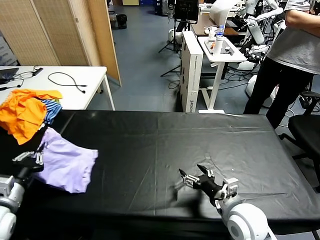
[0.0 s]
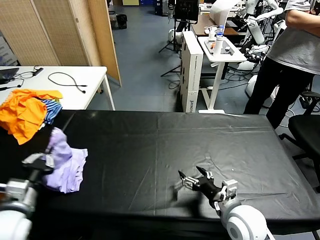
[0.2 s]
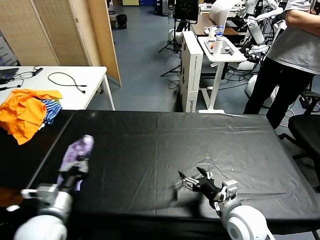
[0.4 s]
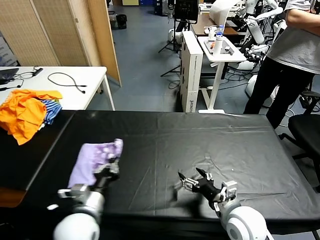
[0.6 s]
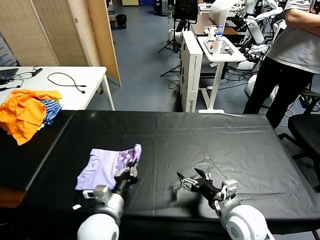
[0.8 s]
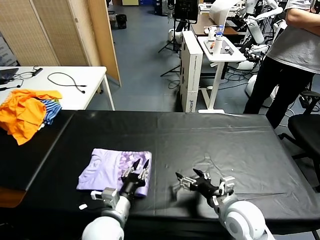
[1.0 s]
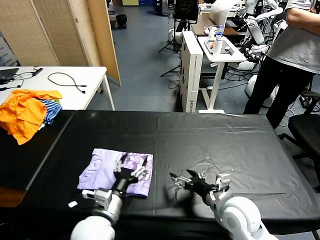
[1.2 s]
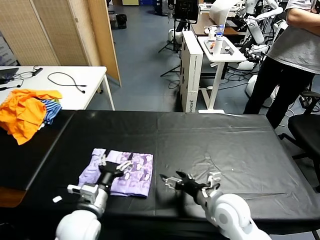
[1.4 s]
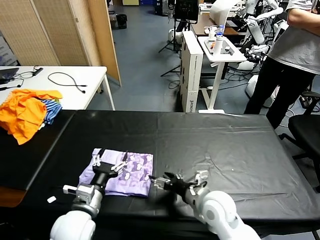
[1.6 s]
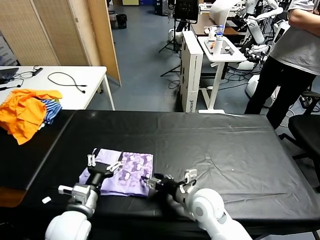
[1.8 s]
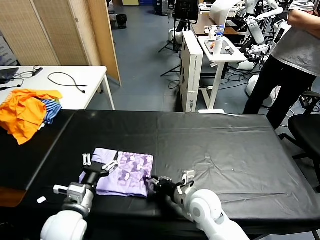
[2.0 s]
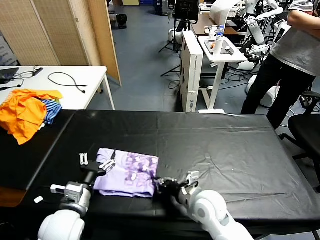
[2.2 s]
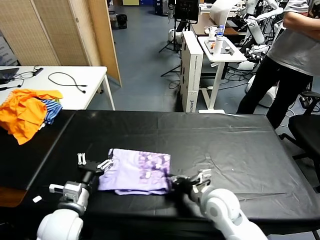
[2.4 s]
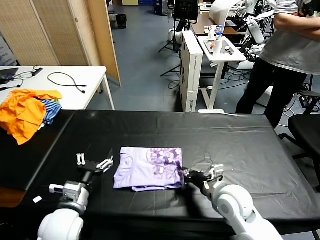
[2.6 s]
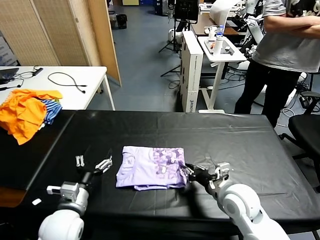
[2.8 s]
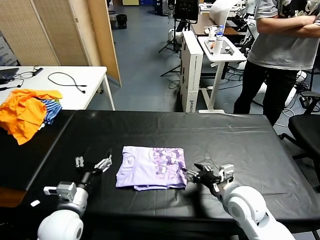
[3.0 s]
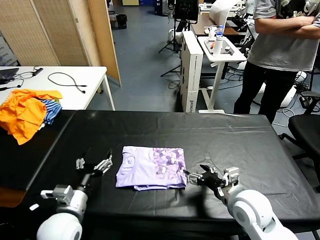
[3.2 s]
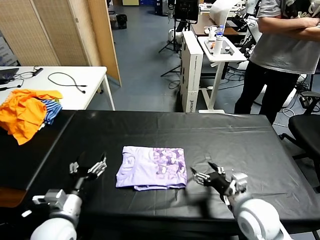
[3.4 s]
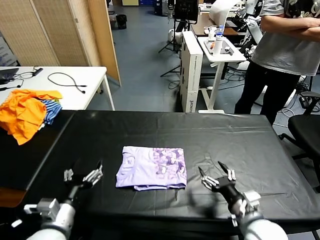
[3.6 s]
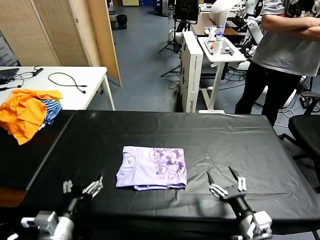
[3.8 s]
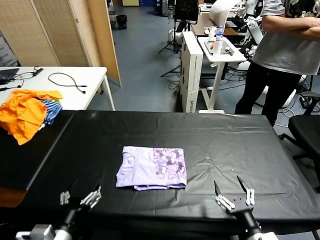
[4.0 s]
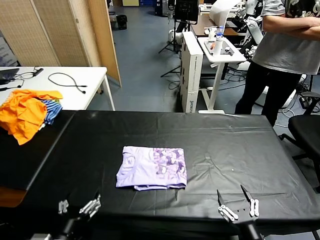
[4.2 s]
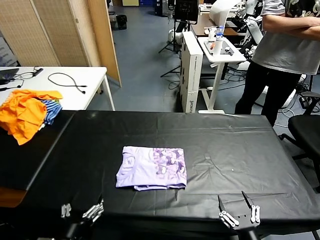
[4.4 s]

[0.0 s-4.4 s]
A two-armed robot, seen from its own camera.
Task of the whole recording: fold and organize the clothes.
Step, 1.6 to 3.0 s: Drag the clothes to the center of the table.
0.0 to 1.4 s: The left gripper is displaced to the right by some 20 cm, and opens up.
1.4 to 3.0 s: The right gripper closes, then opens again. The left gripper is displaced to the left by some 5 cm.
3.0 to 4.4 s: The right gripper moves backward, about 20 cm, while the left gripper goes roughly 15 cm backward.

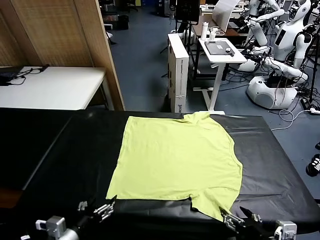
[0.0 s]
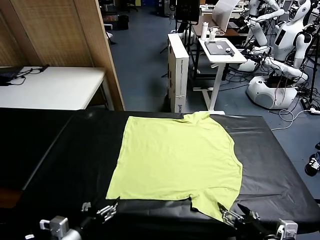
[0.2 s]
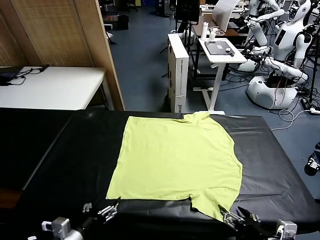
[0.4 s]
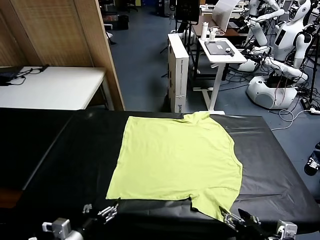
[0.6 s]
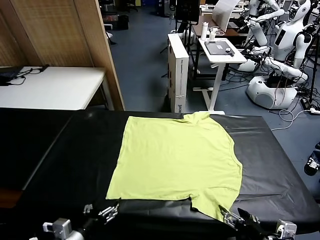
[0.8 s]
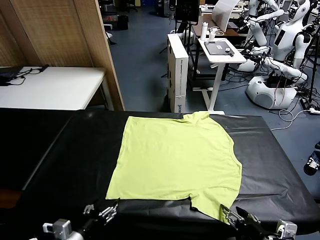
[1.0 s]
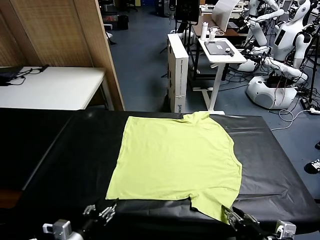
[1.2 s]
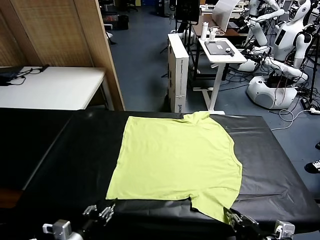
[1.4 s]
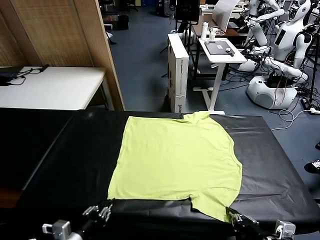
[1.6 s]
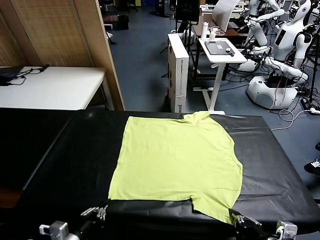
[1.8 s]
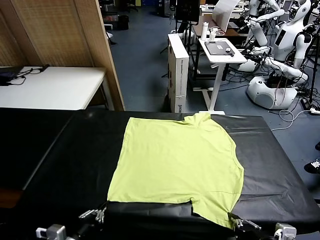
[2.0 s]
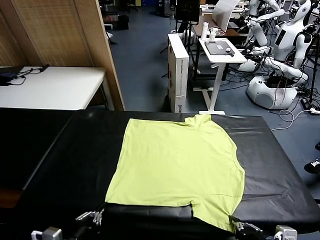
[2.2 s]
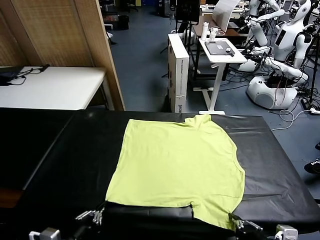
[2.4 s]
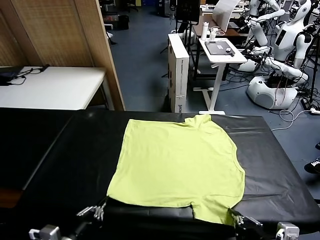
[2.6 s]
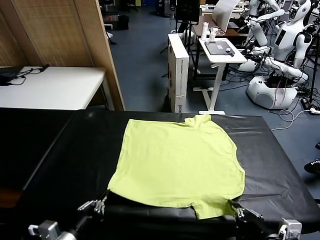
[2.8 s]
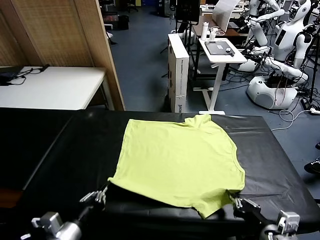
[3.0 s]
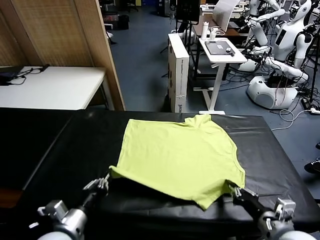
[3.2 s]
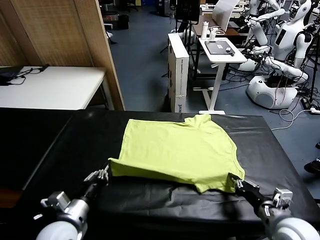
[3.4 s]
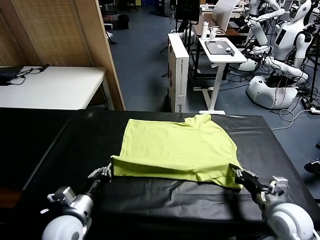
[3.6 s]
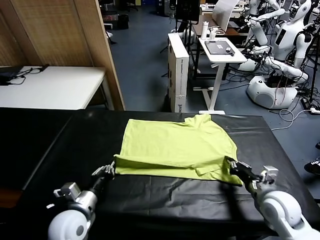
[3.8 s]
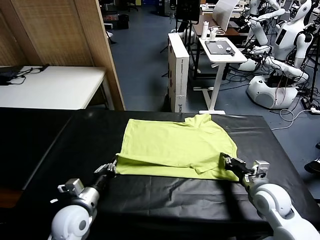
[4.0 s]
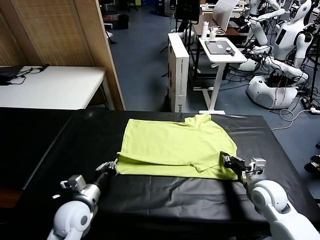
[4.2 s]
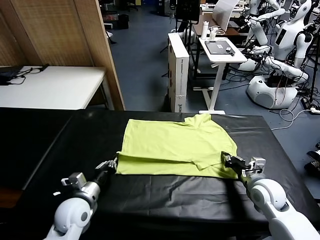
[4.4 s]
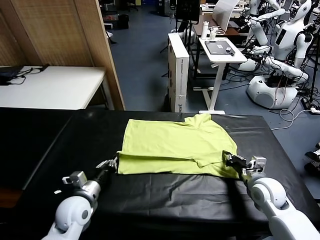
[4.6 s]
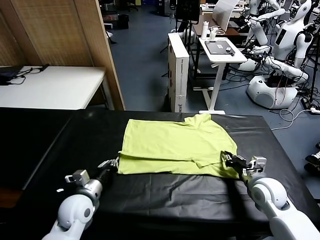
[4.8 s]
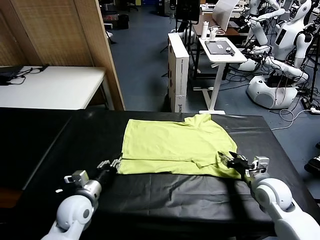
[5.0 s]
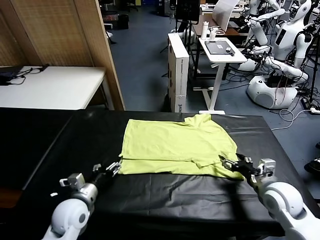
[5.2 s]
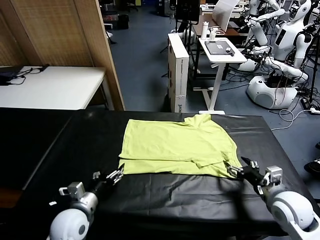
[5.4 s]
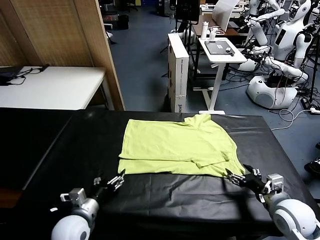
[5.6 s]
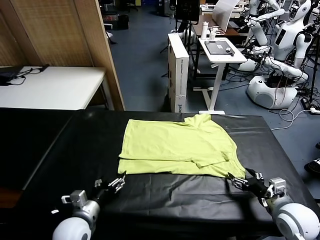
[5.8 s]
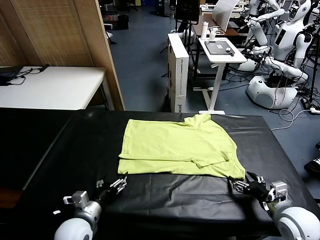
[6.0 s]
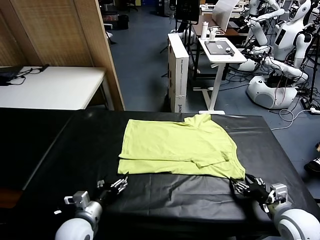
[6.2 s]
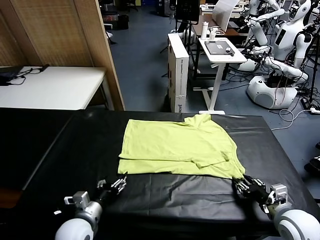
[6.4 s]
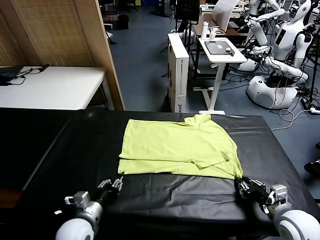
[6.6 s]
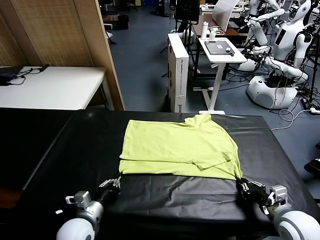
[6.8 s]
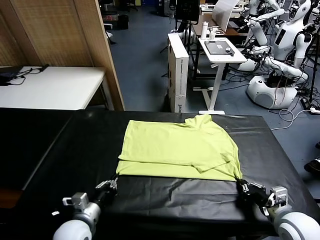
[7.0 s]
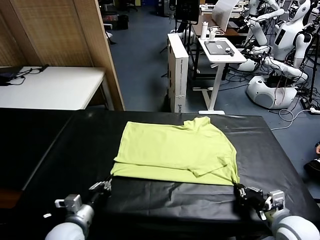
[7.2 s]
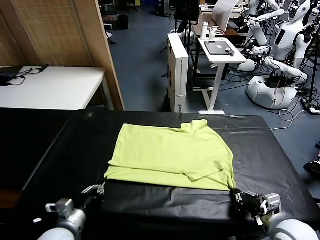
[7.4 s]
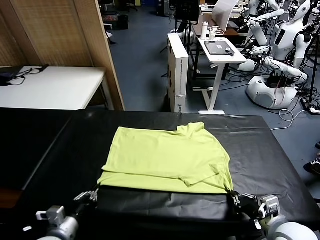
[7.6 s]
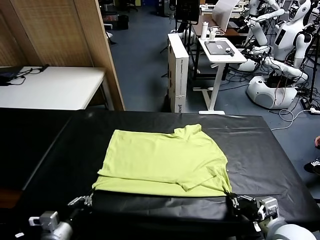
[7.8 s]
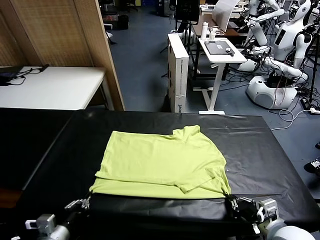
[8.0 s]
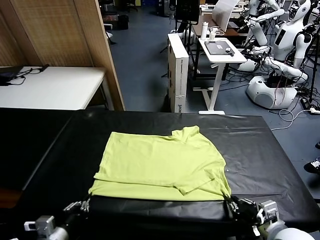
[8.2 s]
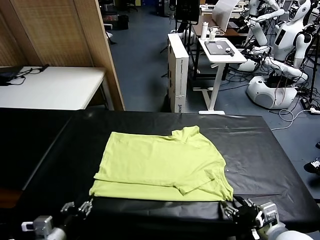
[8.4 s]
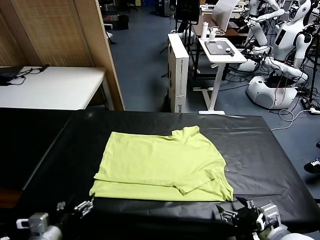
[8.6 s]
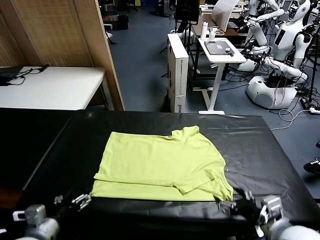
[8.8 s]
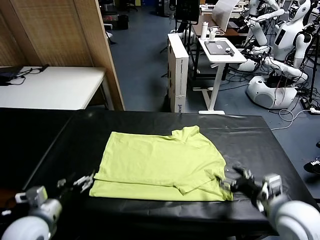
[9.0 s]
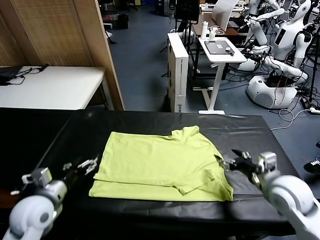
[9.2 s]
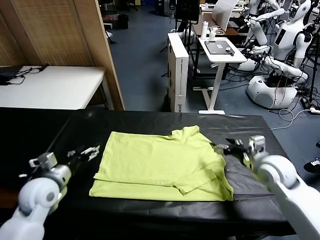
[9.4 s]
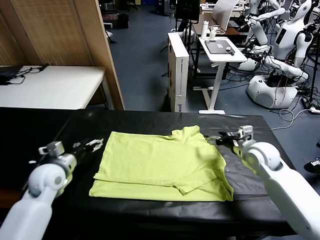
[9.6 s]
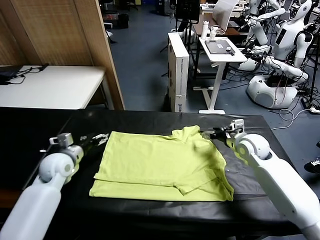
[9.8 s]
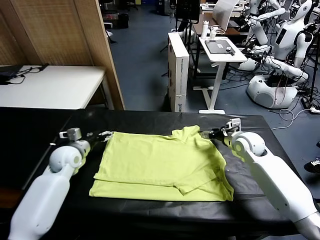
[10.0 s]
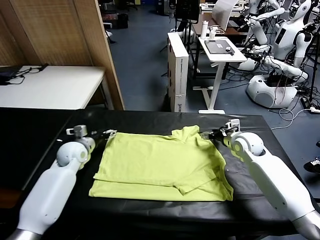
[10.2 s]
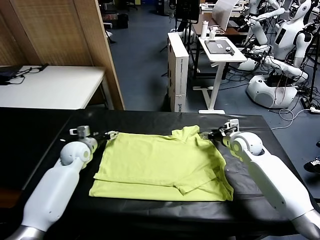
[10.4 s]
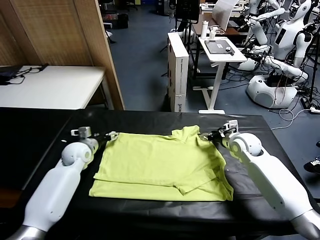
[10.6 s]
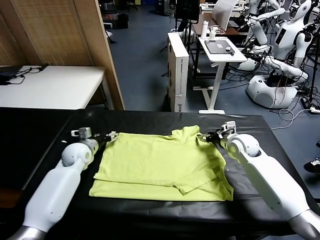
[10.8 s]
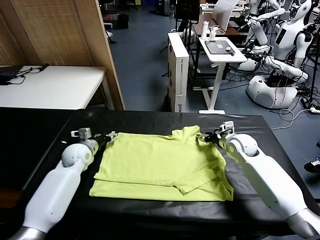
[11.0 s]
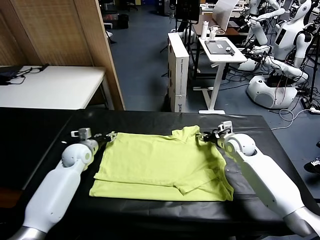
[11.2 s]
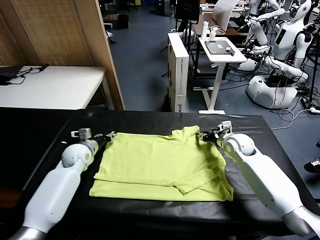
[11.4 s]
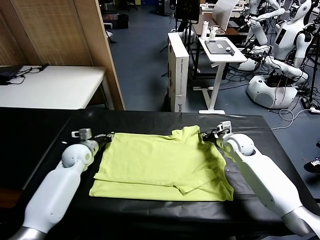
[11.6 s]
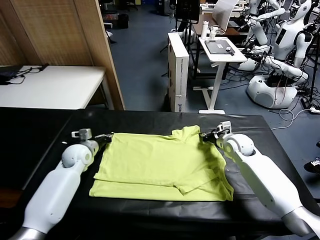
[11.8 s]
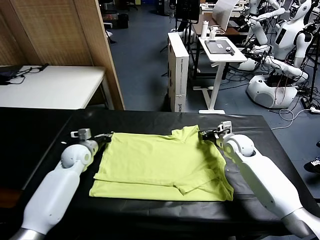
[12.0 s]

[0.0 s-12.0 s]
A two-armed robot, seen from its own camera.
Task of the whole recording: fold and organize the clothes.
Step, 0.0 to 1.8 s: use both grippers simultaneously to clamp the lower edge of the clothing fabric.
Step, 2.0 to 5.0 s: use both grippers to drag the lower edge of the fabric forward and fold it over the upper edge.
Step, 5.2 to 8.4 s: Drag the clothes downward with both gripper.
Step, 8.6 to 11.8 s: use both grippers simultaneously to clamp the upper edge of the clothing fabric.
1.6 to 3.0 s: Both grippers travel together forward, some 5 cm.
3.0 to 4.4 s: The right gripper heads forward, covering approximately 15 cm. The left gripper travels forward and downward by roughly 10 cm.
4.4 to 6.0 s: The right gripper travels backward by roughly 10 cm, and opens its fingers, while the left gripper is displaced backward by about 5 cm, and opens up.
6.0 to 7.6 s: The right gripper is displaced to the left by roughly 5 cm, and closes its fingers. Meanwhile the left gripper is displaced backward and to the left by about 10 cm, and closes.
7.6 to 9.0 s: The right gripper goes approximately 20 cm forward, and opens. The left gripper moves forward and upward, some 15 cm, and opens its fingers.
9.0 to 10.4 s: The right gripper is displaced forward and downward by approximately 15 cm. The left gripper heads forward, covering some 20 cm.
10.4 to 12.0 s: The left gripper closes up, while the right gripper closes up.

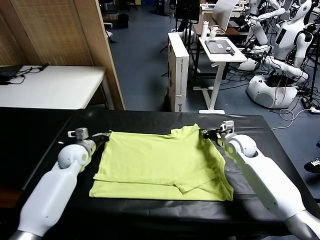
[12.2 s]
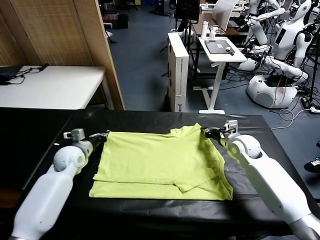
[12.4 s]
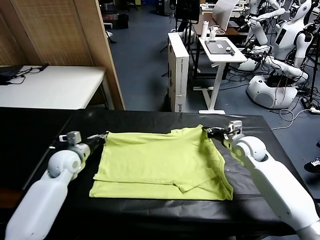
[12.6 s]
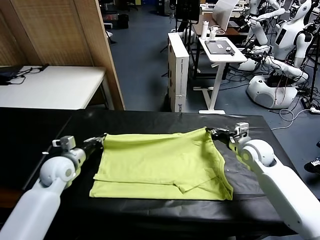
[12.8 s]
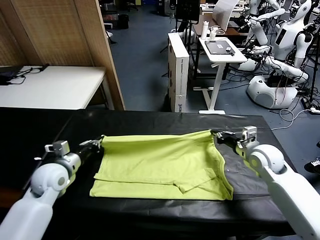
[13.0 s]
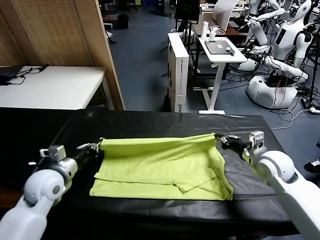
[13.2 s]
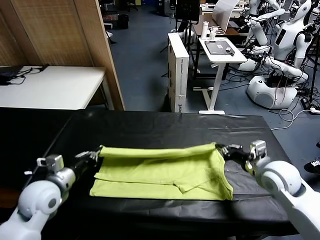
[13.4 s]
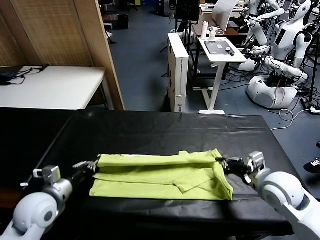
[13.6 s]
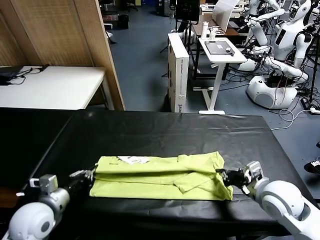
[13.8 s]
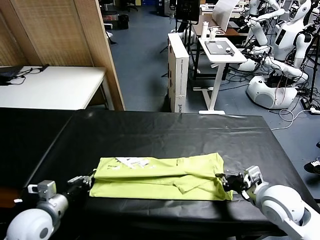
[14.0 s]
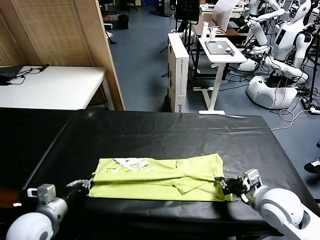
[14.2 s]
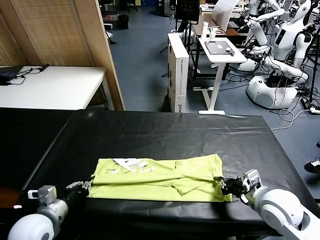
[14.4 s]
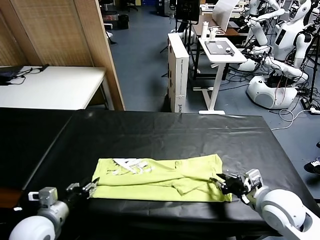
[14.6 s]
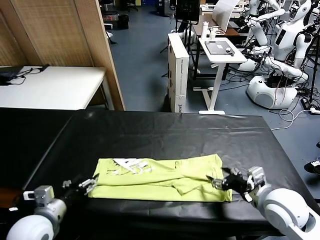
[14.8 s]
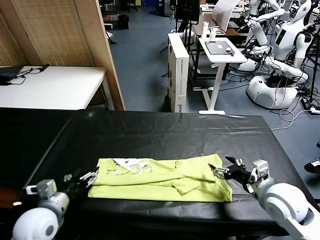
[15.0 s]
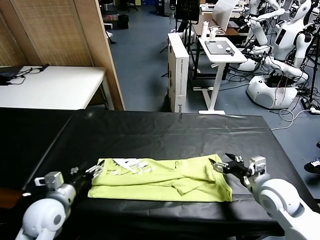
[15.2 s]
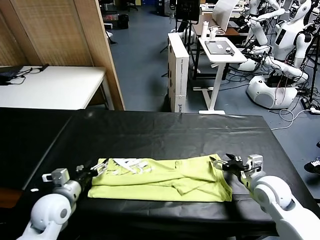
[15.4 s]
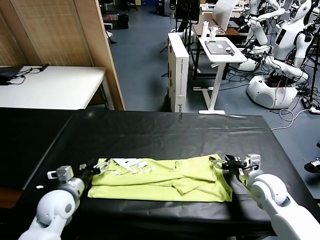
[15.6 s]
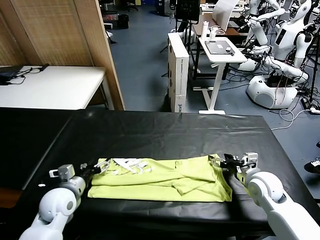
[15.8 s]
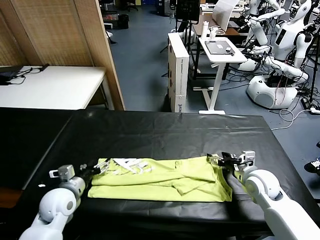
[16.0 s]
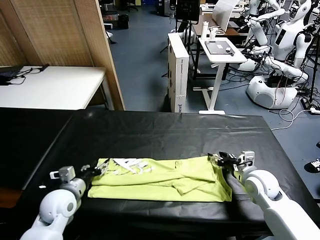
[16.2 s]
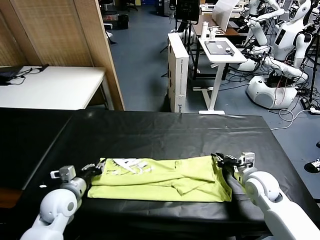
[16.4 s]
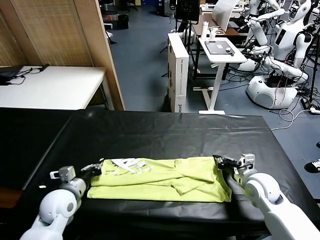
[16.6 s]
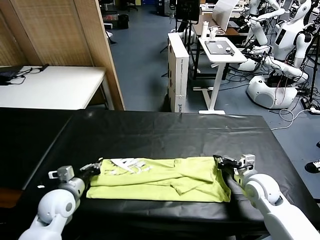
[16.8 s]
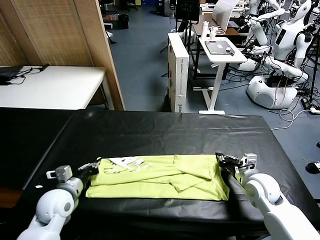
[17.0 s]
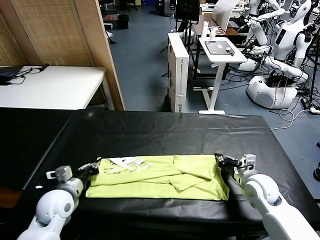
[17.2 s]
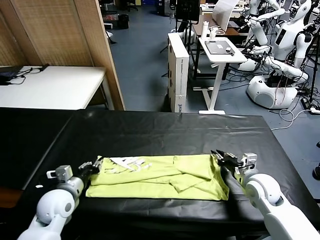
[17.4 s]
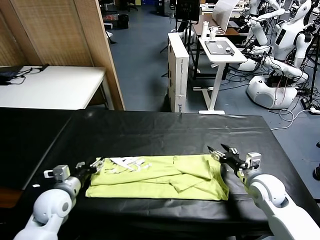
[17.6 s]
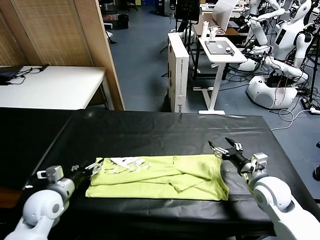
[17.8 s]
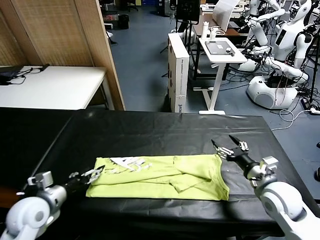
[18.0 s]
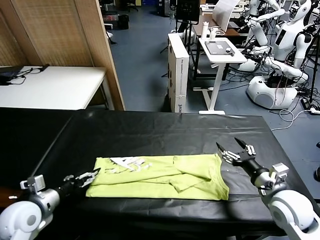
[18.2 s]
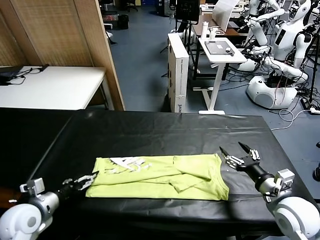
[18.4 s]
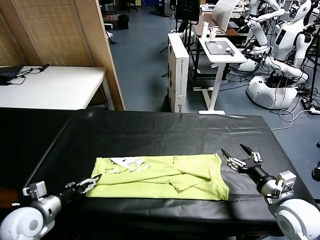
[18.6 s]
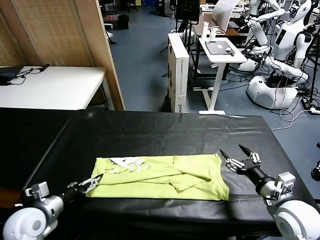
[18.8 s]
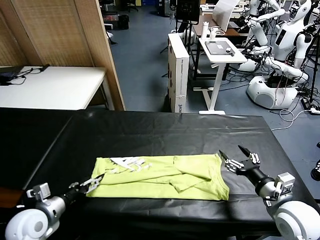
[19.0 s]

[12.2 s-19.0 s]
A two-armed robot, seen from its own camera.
Task of the whole recording: fold and organize the clothes.
Step, 12.2 to 14.8 s: use both grippers to drag the upper edge of the fabric backward and fold it over the lower edge.
12.2 to 13.6 s: Both grippers move backward, roughly 20 cm.
13.6 to 15.0 s: Both grippers travel together forward, about 5 cm. The left gripper opens, while the right gripper opens its fingers.
15.0 to 16.2 s: The right gripper closes up. Meanwhile the left gripper closes up.
16.2 to 17.6 s: The right gripper shifts approximately 10 cm backward and upward, and opens its fingers; the left gripper shifts approximately 5 cm to the left, and opens up.
17.6 to 19.0 s: The grippers make only small movements.
